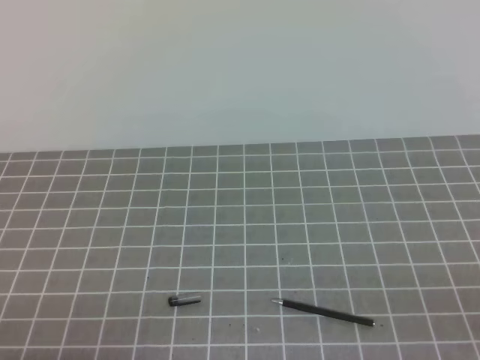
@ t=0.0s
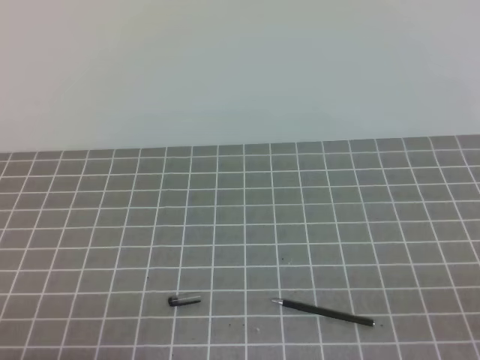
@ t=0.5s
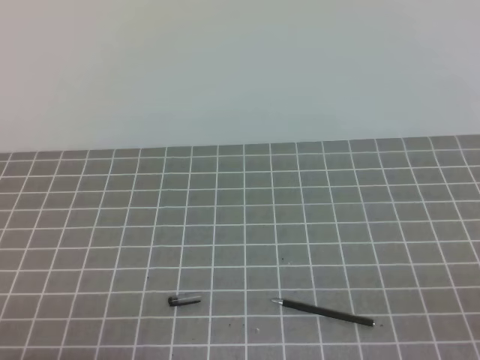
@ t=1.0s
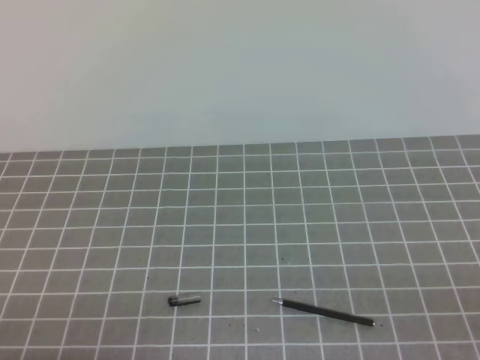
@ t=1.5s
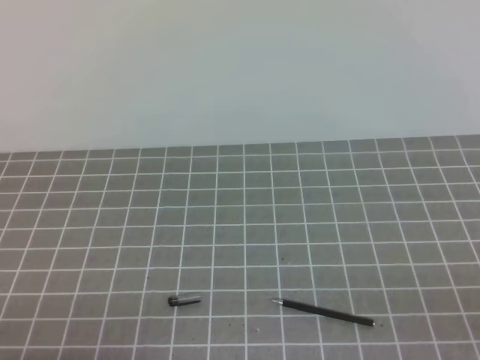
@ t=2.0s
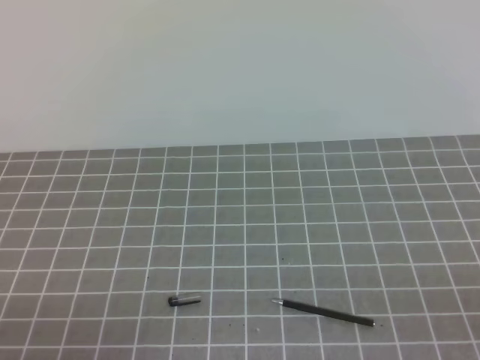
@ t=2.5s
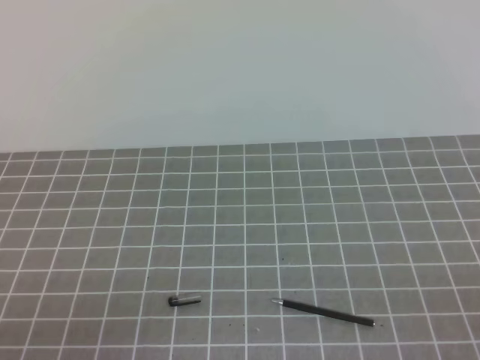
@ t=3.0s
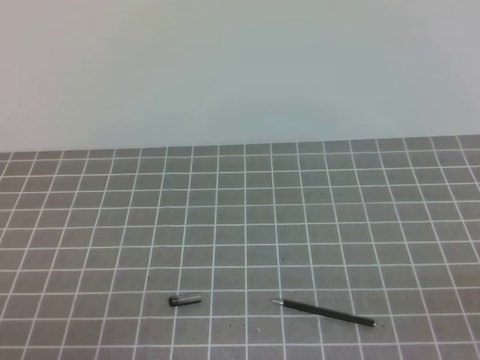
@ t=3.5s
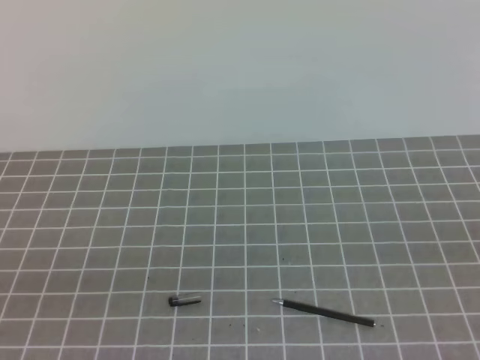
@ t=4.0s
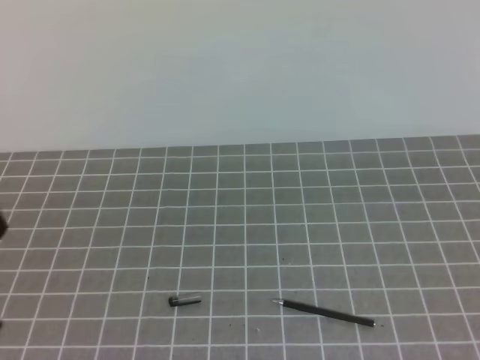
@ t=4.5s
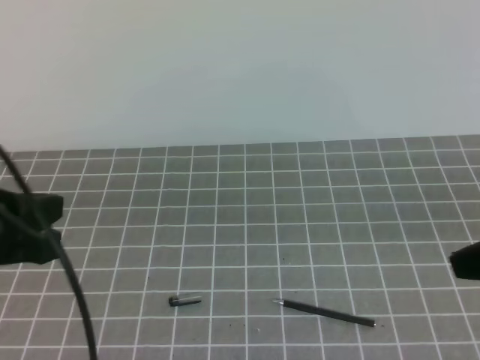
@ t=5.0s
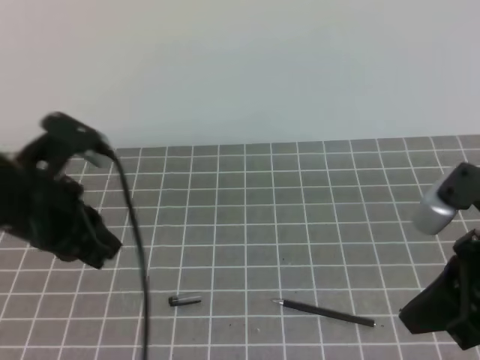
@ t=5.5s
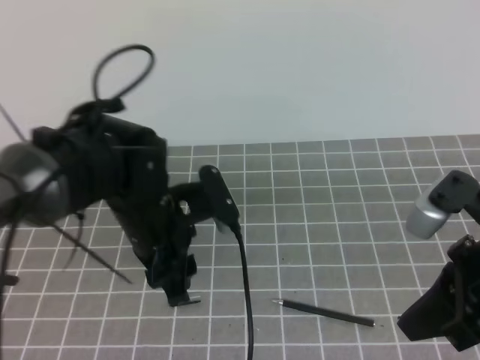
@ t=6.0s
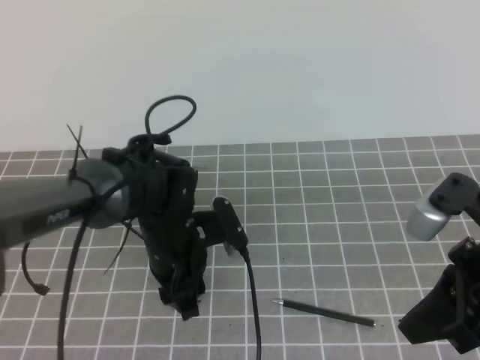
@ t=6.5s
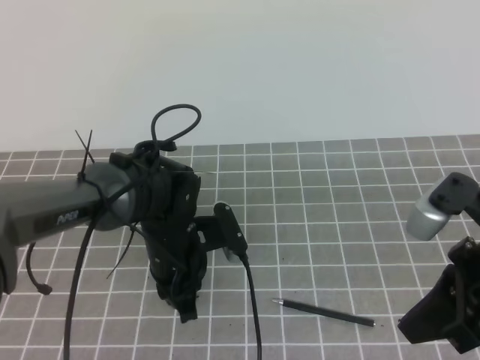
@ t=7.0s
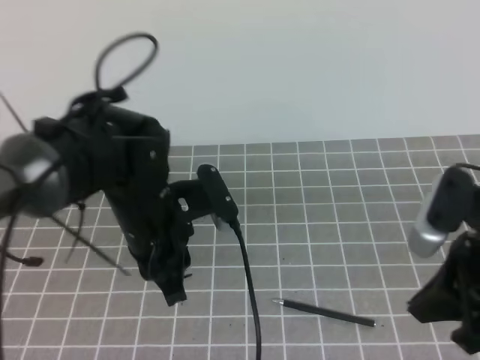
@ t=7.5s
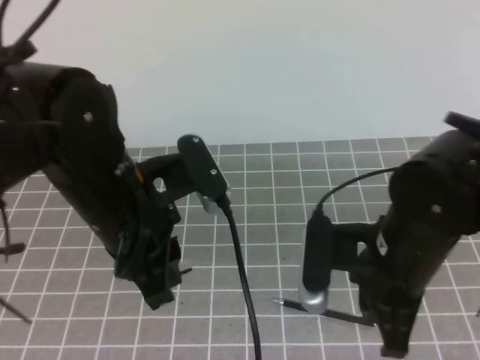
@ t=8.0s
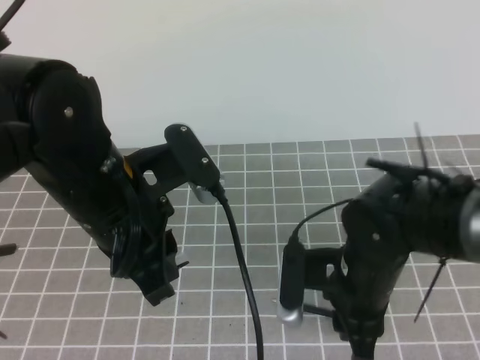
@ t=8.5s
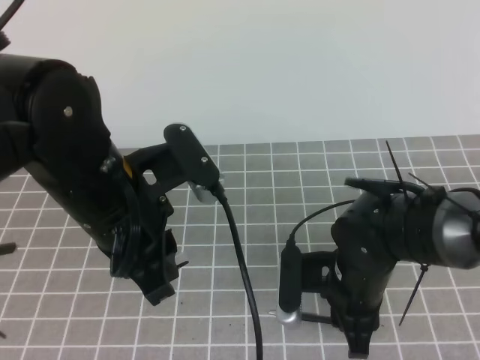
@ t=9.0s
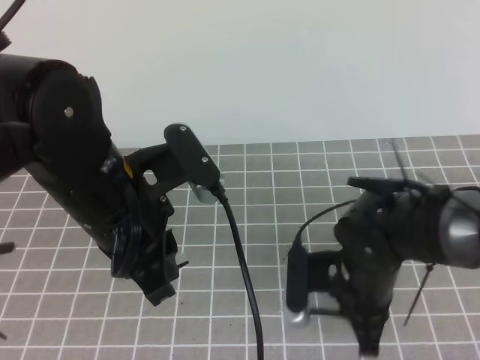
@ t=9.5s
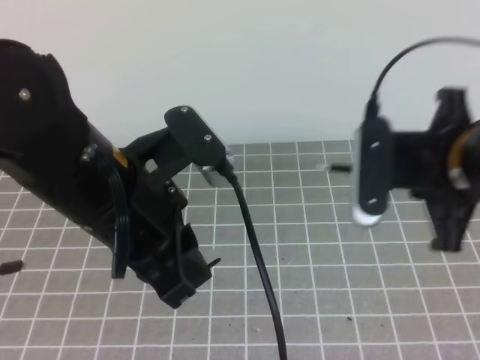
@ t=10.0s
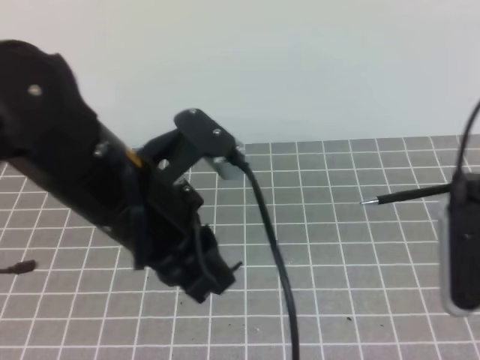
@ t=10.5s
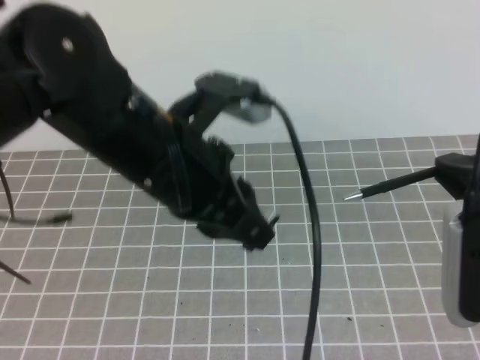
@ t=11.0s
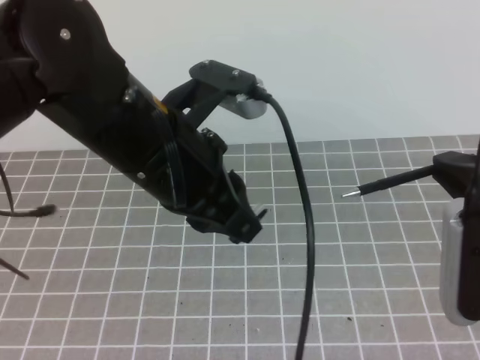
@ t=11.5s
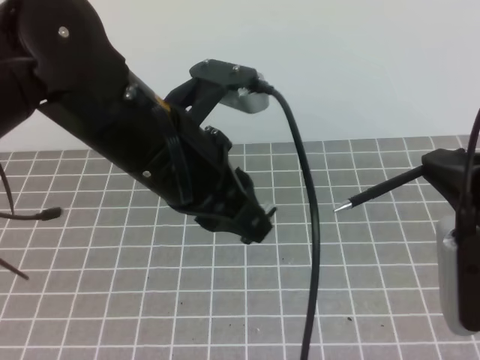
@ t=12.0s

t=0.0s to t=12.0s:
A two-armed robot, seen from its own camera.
Task of the whole recording: on the grey tablecloth, hold the pen cap in one hand and the pen in the other, then cover the pen cap.
t=0.0s to t=2.0s: Neither gripper changes place.
t=4.0s to t=6.0s: The right gripper goes approximately 20 cm forward and to the left. The left gripper shifts about 30 cm forward and to the right, and opens.
t=6.0s to t=8.0s: The right gripper moves to the left, about 10 cm, and opens. Meanwhile the left gripper shifts about 5 cm upward, and closes.
t=8.0s to t=10.0s: The right gripper heads upward, covering about 5 cm, and closes.
t=10.0s to t=12.0s: The right gripper goes about 10 cm backward.

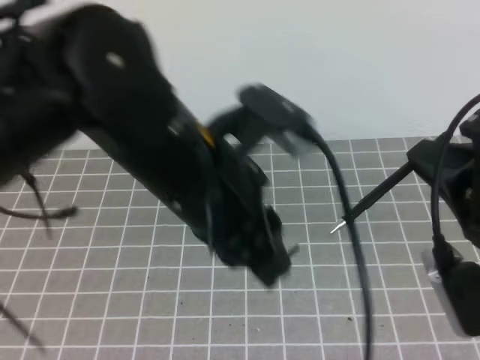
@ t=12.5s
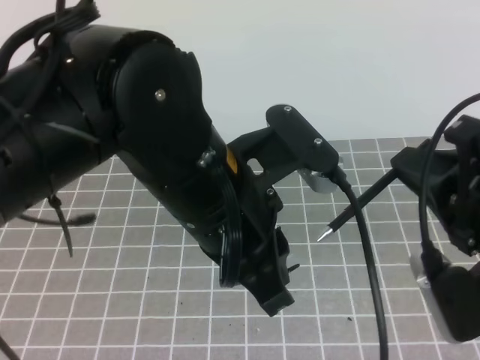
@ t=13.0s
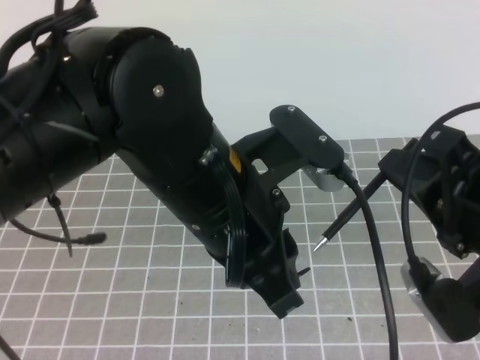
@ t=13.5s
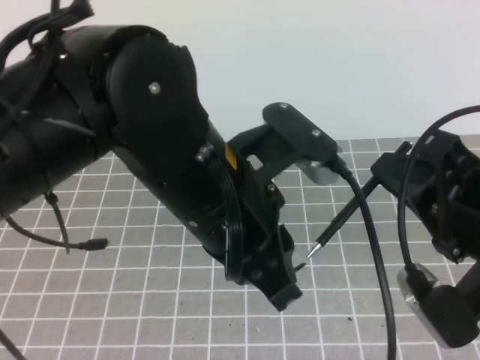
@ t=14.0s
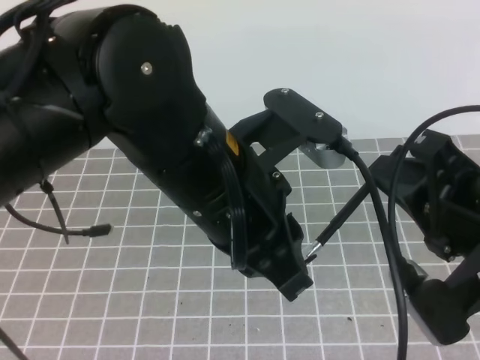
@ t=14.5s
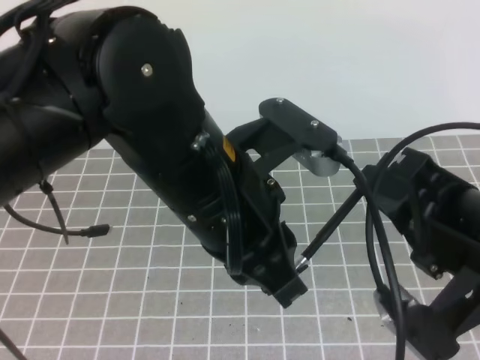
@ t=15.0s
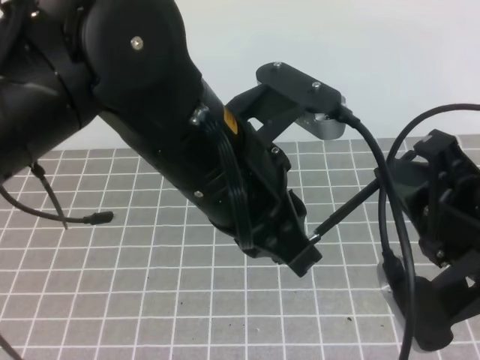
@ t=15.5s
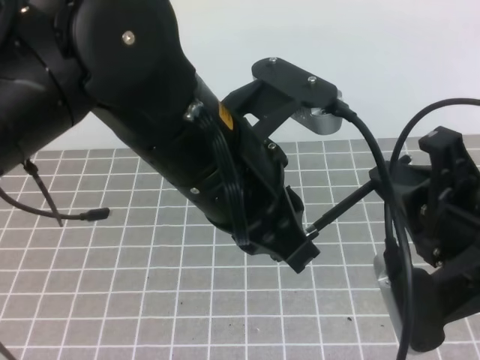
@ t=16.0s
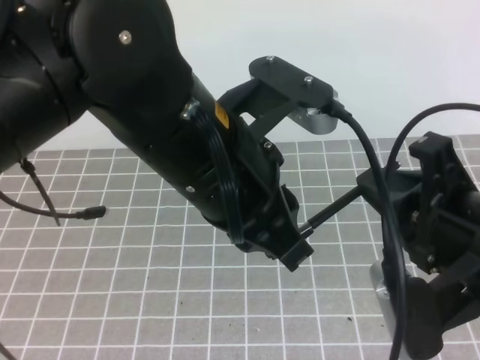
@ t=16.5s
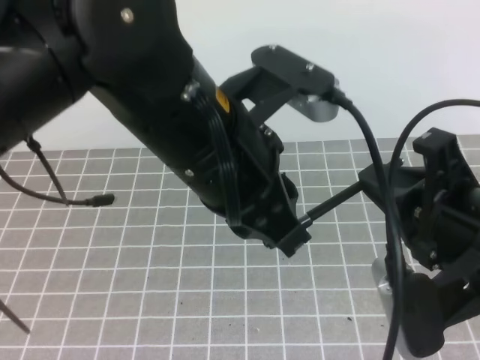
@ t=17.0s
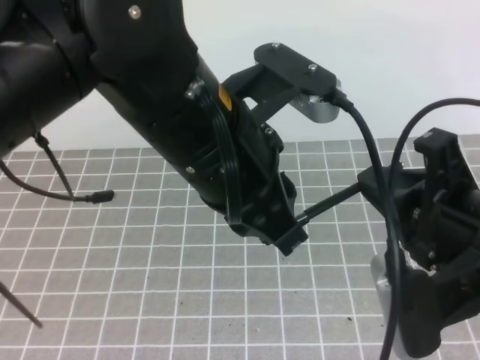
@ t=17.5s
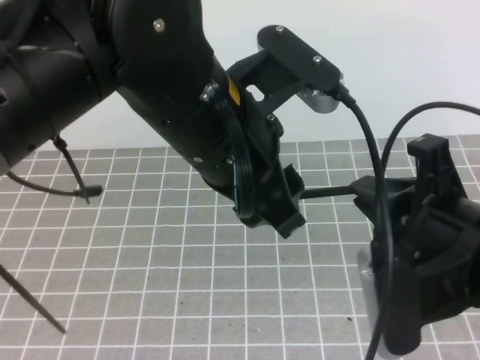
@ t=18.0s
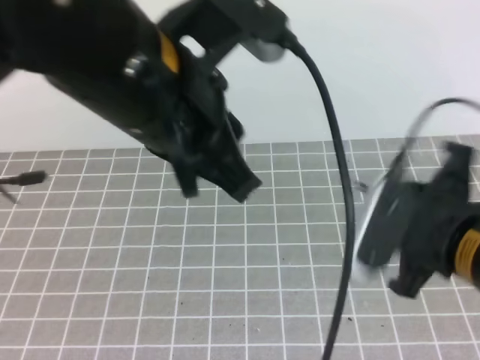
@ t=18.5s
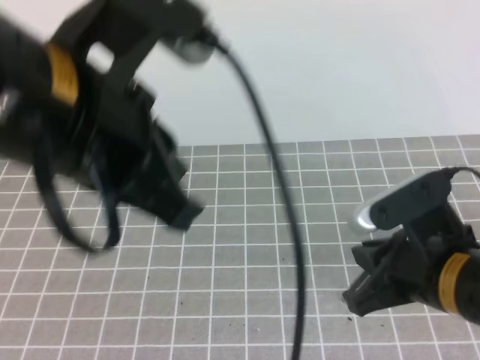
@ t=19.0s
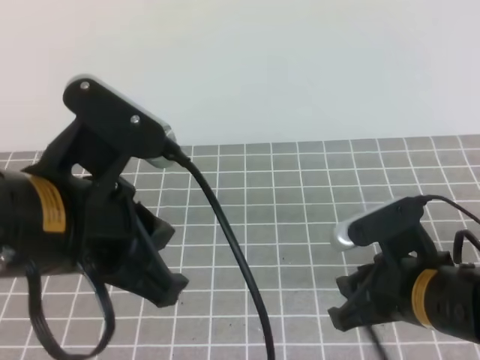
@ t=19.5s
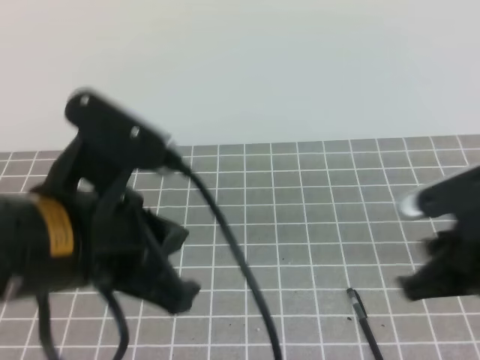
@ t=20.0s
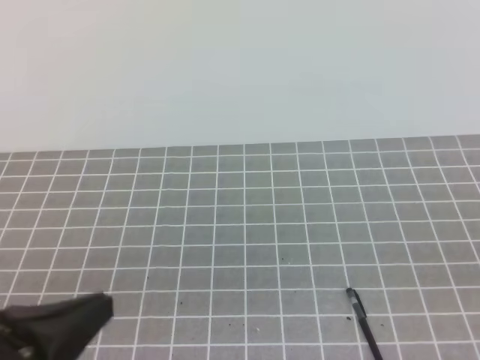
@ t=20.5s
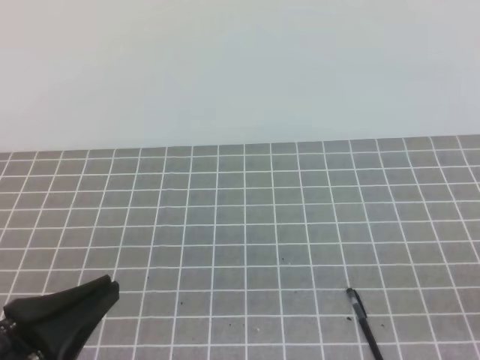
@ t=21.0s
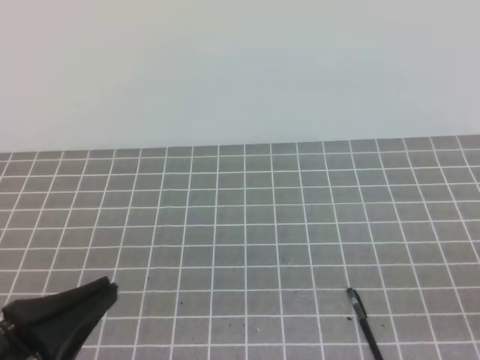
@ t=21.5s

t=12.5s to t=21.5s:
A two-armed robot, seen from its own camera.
Task of the whole recording: on the grey tablecloth, hold the pen cap in one hand and the pen in the other, then cover the pen cap.
t=17.0s to t=19.5s: The right gripper shifts roughly 15 cm downward and forward, and opens its fingers. Meanwhile the left gripper goes approximately 10 cm to the left, and opens, then closes once more.
t=19.5s to t=21.5s: The left gripper heads downward, to the left and backward, covering roughly 15 cm, while the right gripper shifts about 25 cm to the right and backward, and closes up.
